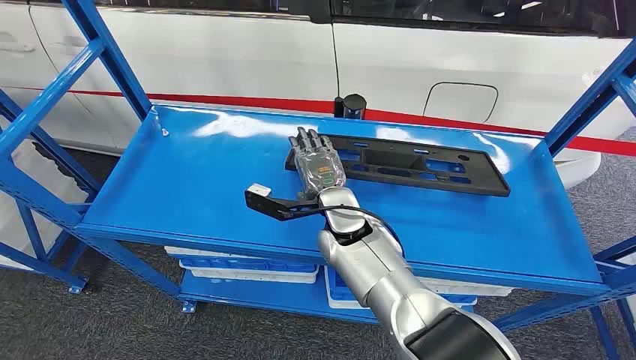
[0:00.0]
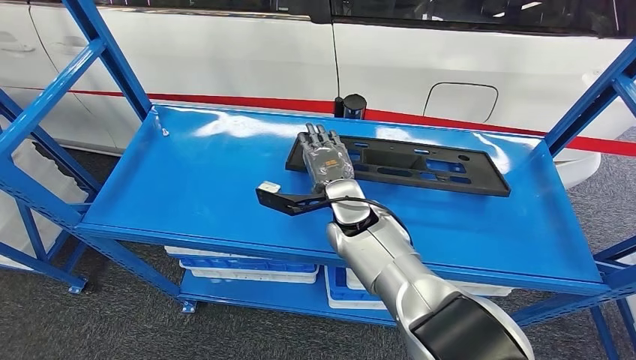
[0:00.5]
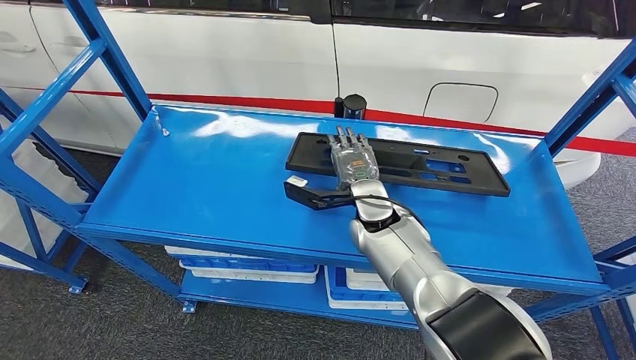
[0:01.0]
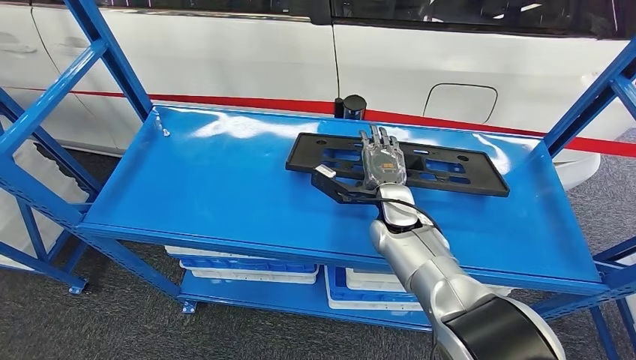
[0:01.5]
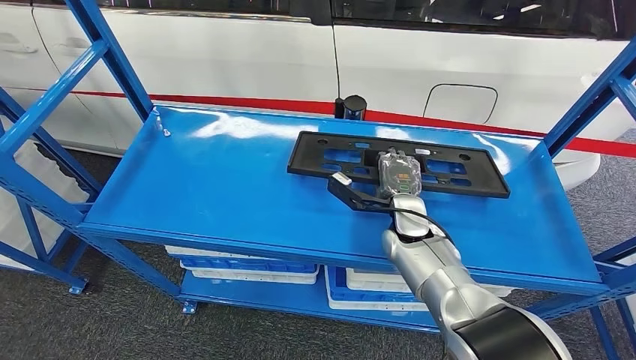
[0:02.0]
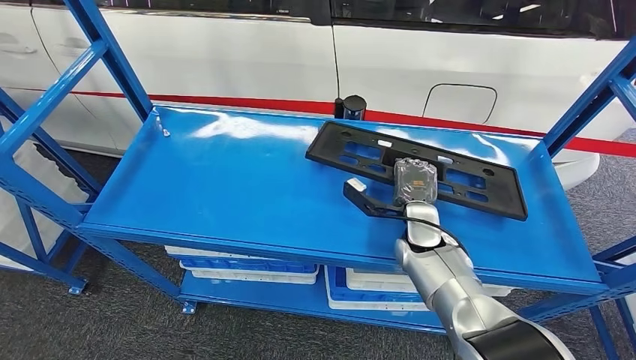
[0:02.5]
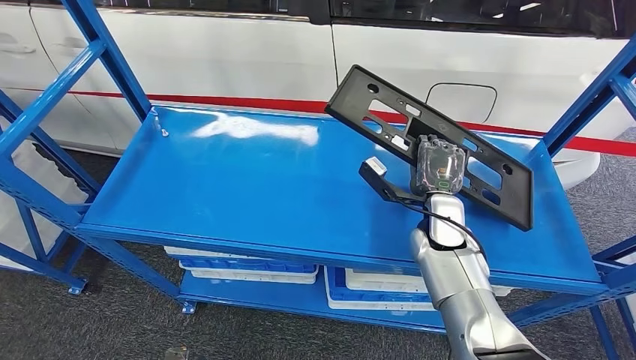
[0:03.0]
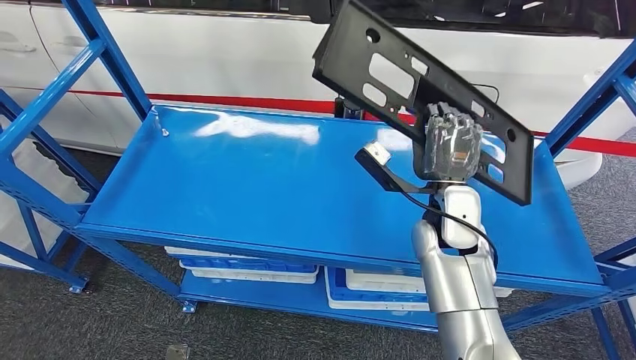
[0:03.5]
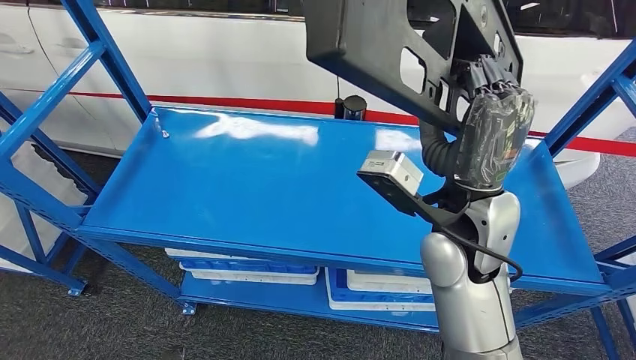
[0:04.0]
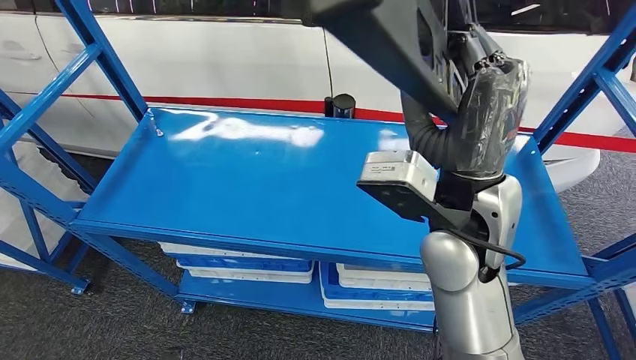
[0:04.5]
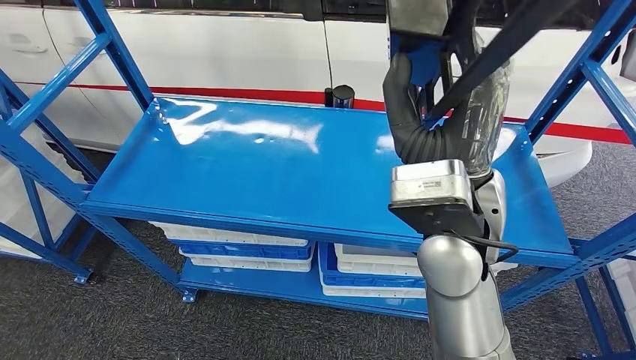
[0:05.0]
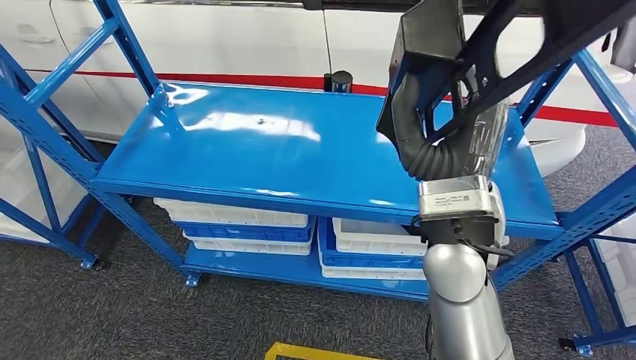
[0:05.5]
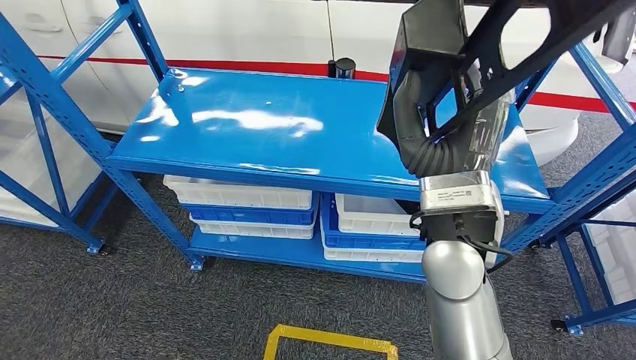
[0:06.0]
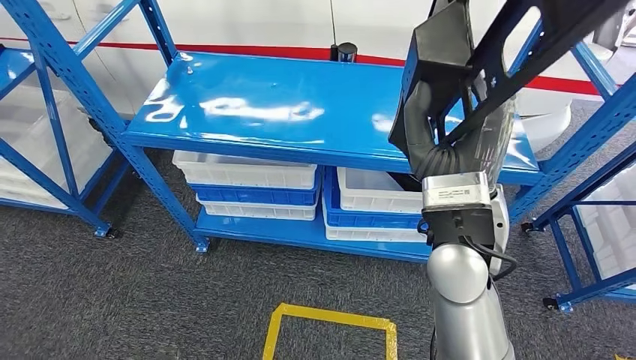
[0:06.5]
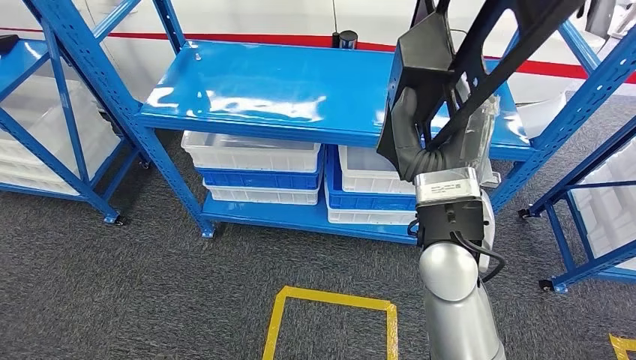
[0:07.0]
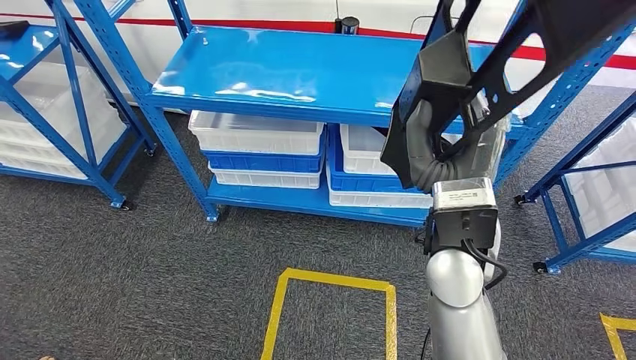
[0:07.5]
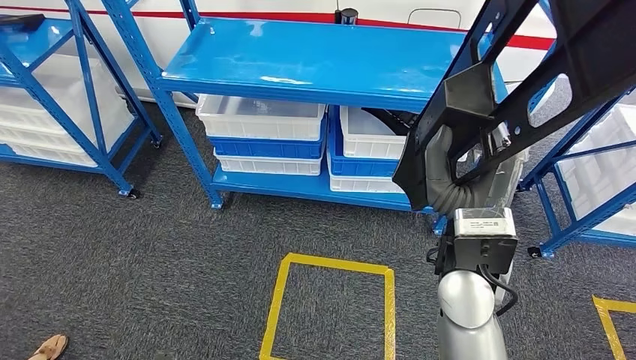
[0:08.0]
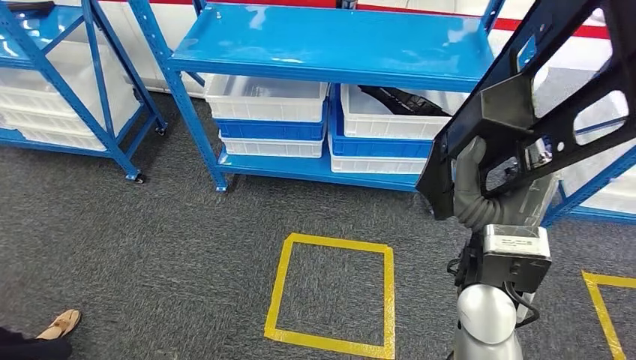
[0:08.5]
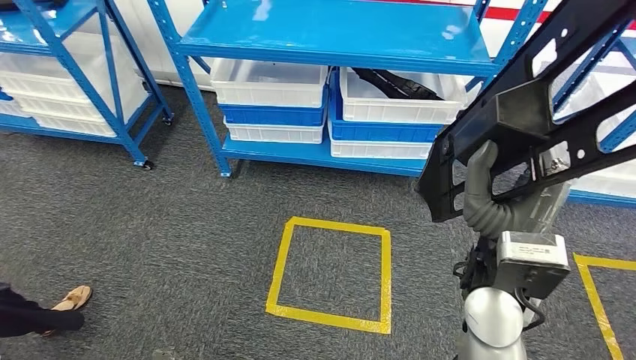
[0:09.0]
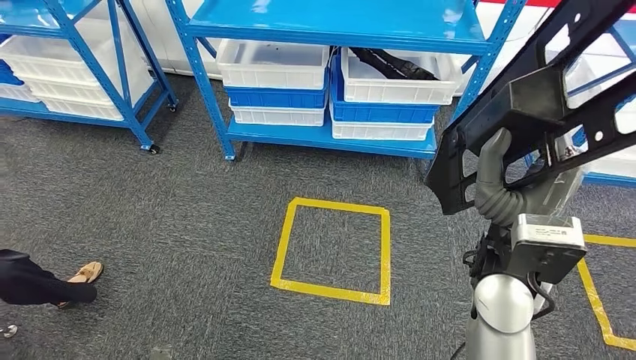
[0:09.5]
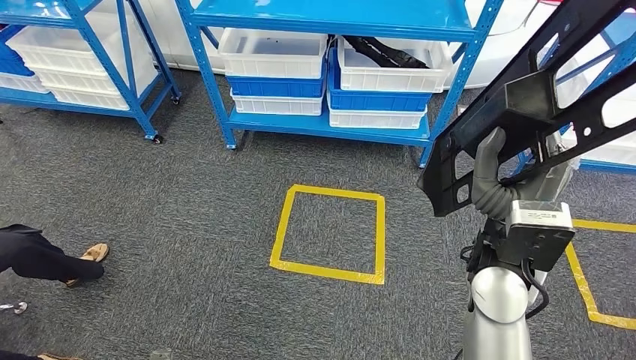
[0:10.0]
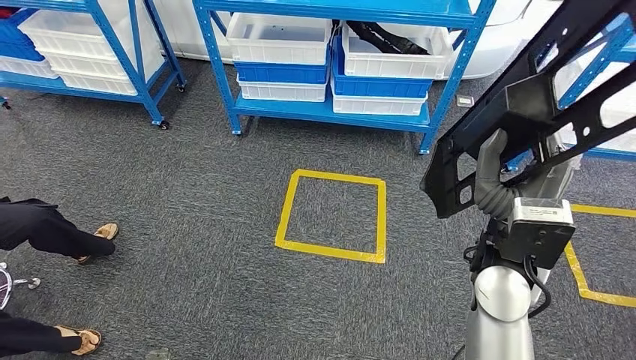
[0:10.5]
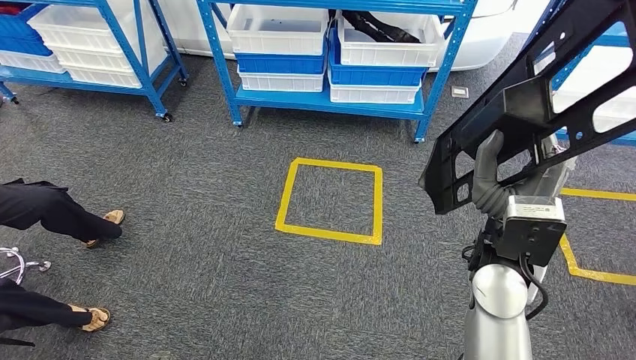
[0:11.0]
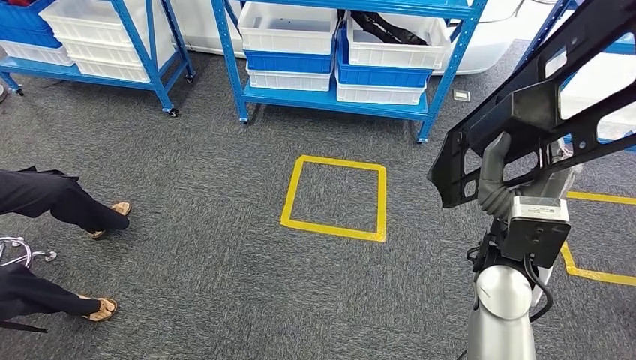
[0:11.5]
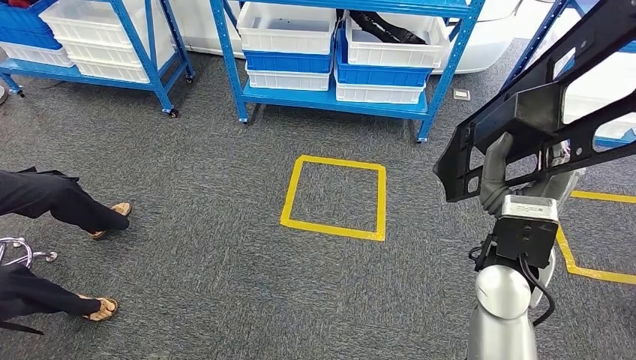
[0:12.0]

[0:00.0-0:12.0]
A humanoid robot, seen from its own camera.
Step, 0:00.0 to 0:04.0: Pick up the large material from the shelf.

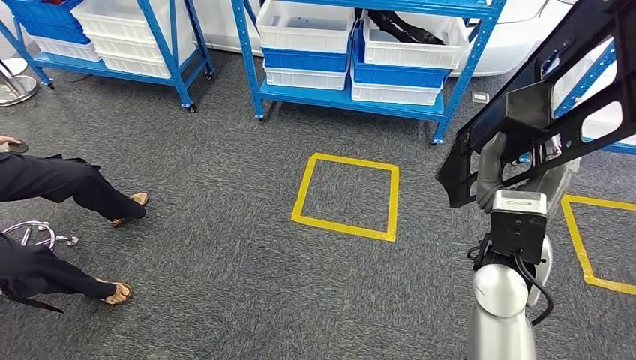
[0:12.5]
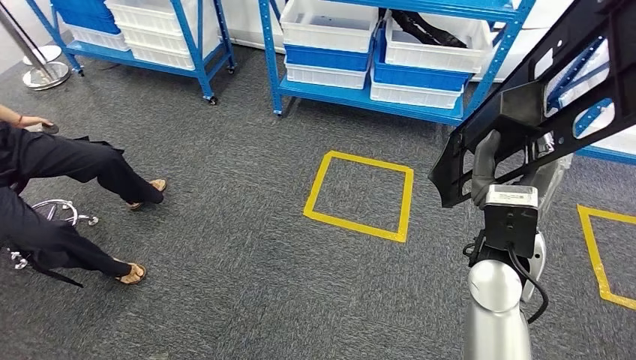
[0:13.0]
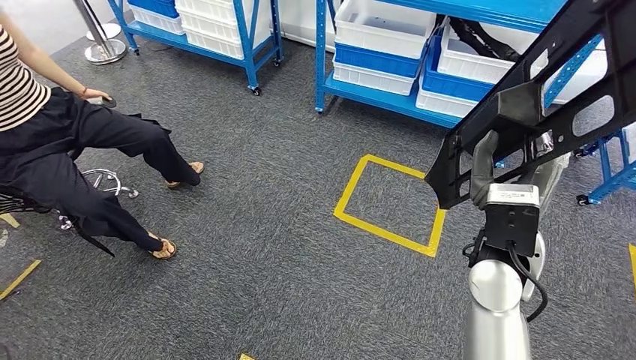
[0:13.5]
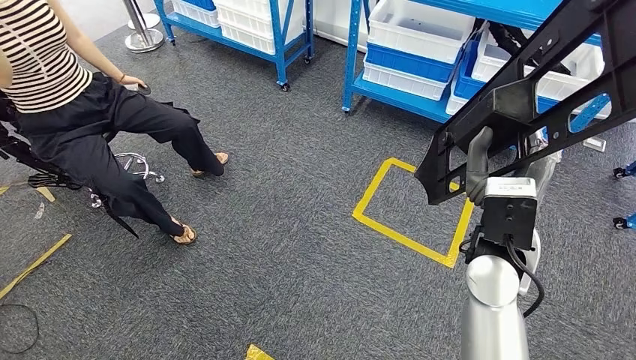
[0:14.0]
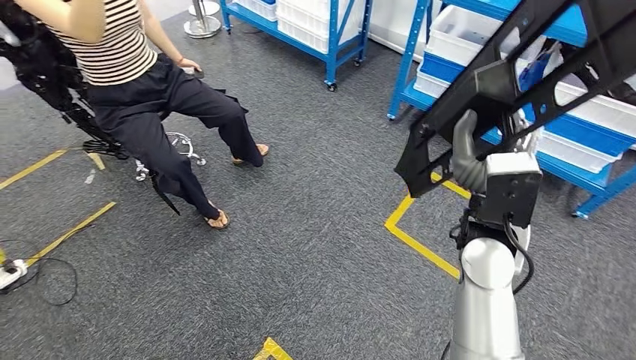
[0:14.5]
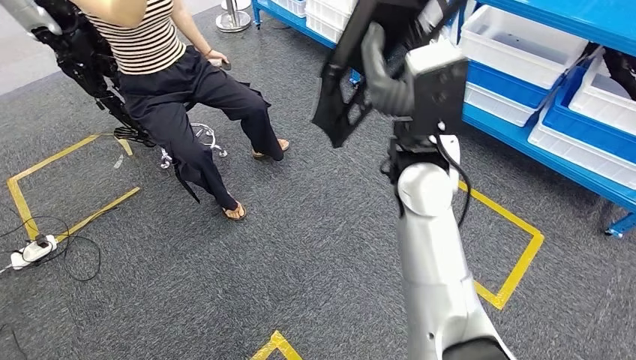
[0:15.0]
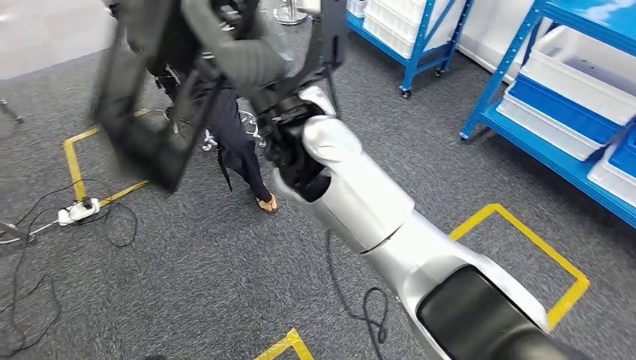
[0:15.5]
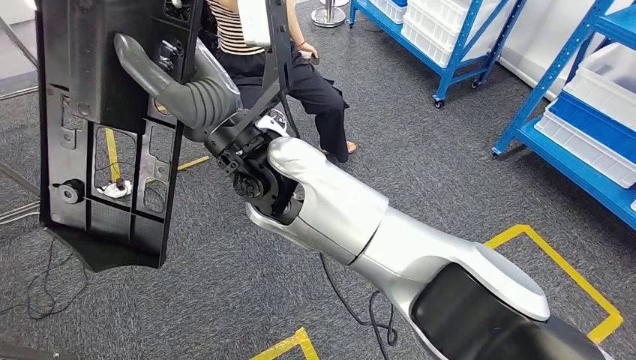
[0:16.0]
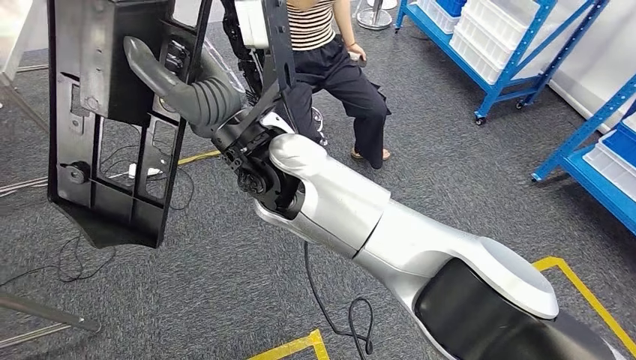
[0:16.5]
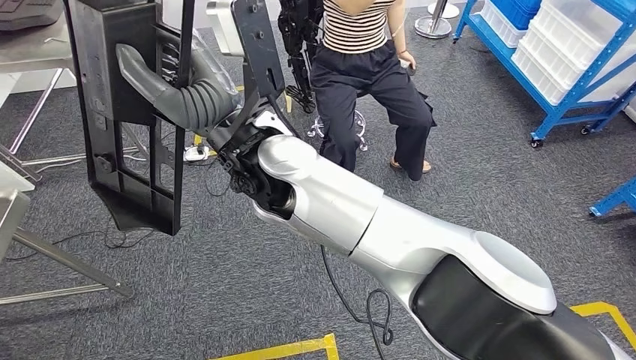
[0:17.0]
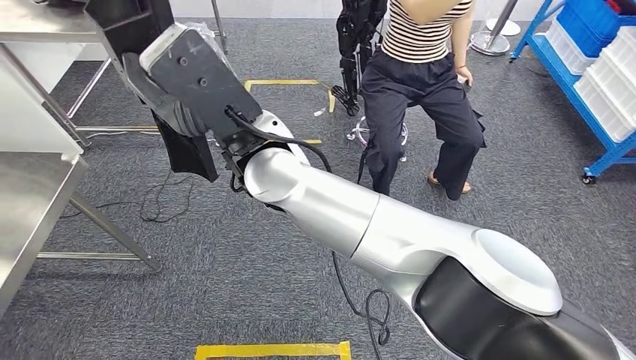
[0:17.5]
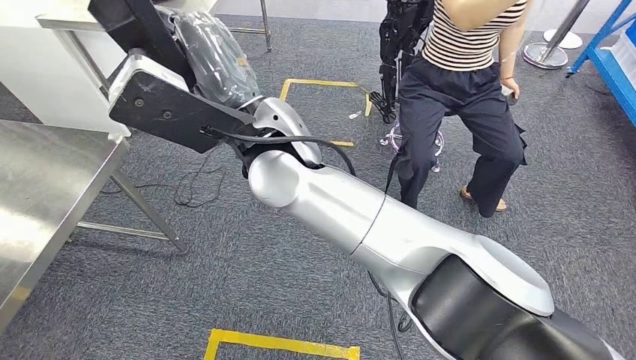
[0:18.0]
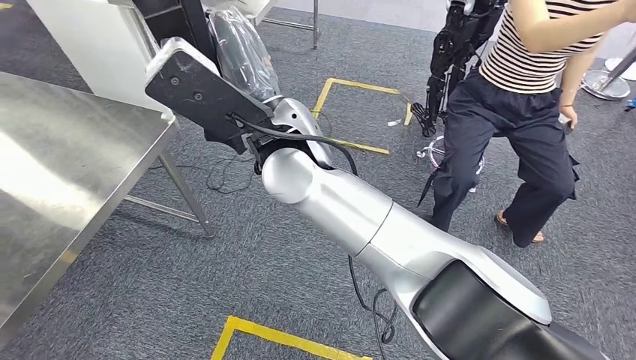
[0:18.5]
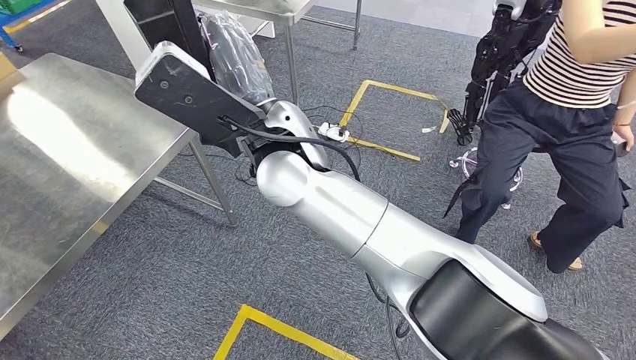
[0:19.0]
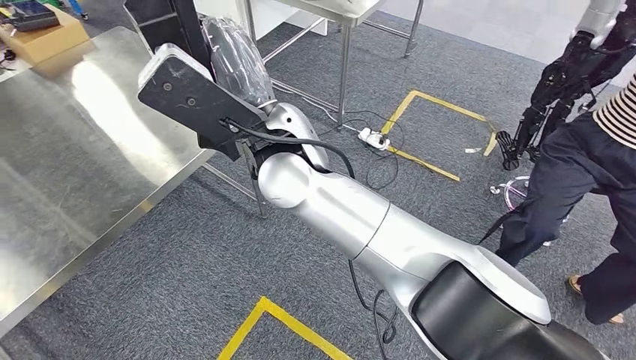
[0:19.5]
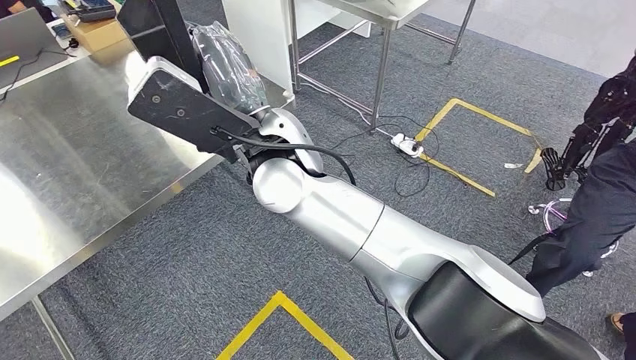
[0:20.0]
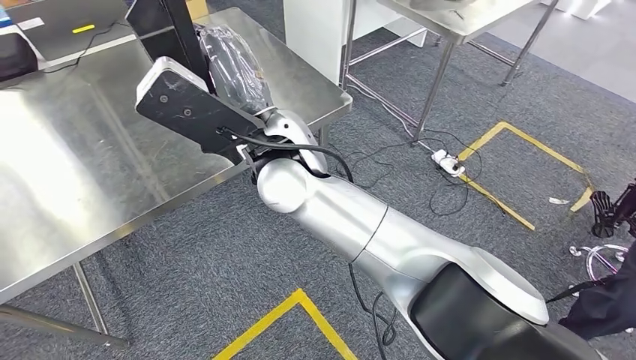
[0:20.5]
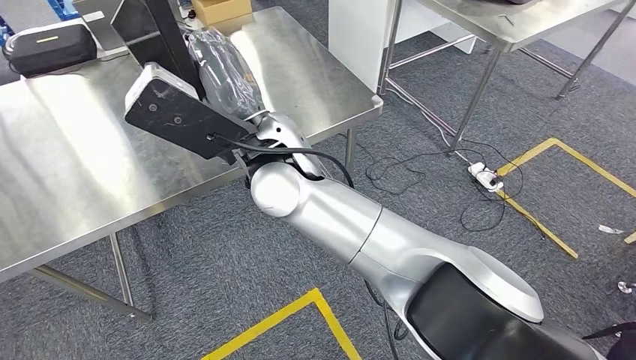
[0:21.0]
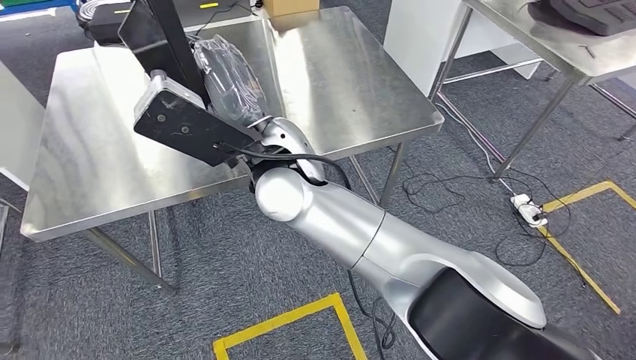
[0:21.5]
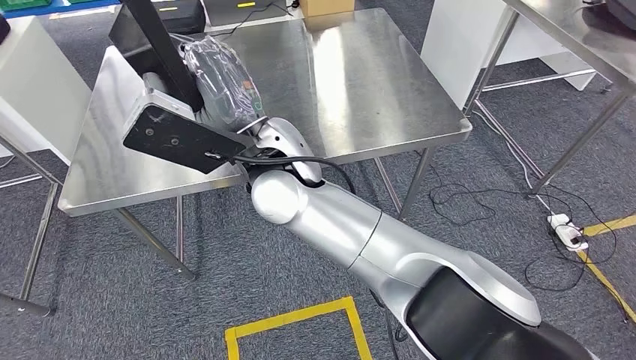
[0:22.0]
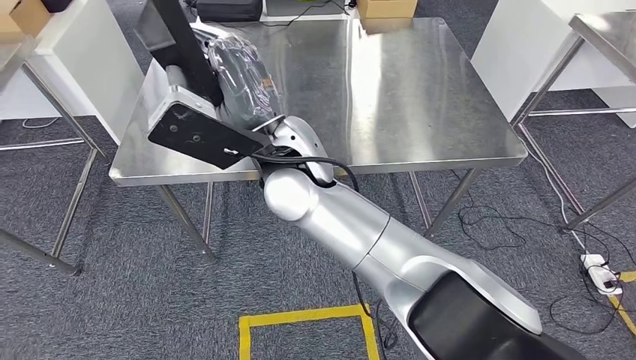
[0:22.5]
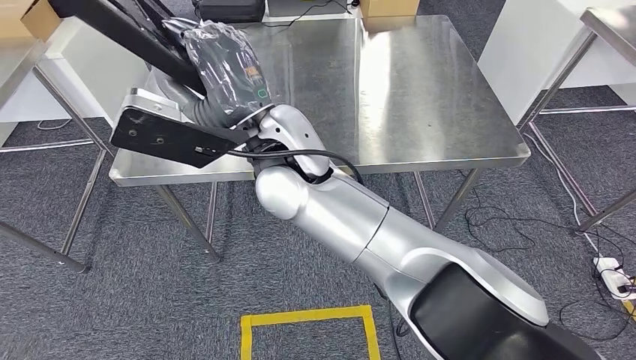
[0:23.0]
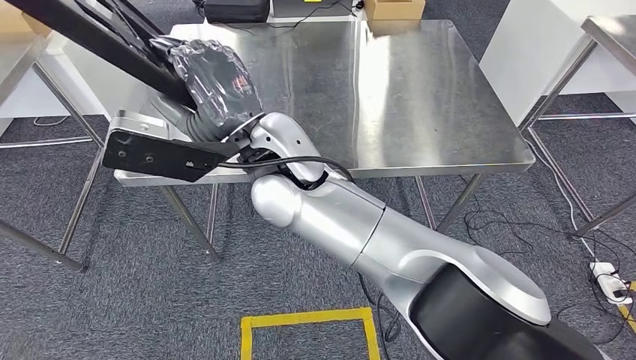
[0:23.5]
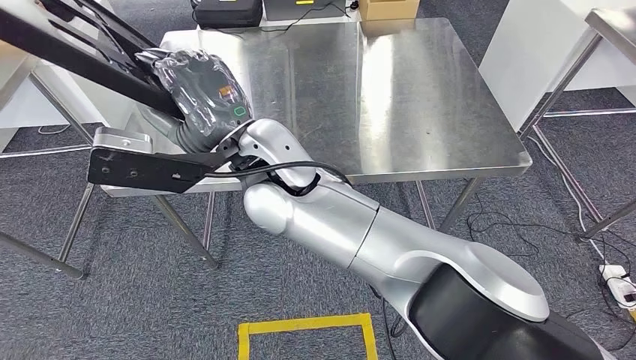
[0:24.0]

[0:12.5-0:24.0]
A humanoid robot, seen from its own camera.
Step, 0:12.5 to 0:21.5: Move the large material to the workbench.
